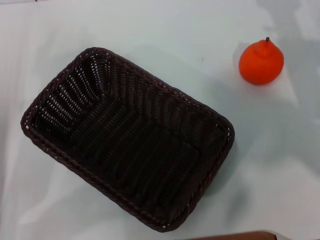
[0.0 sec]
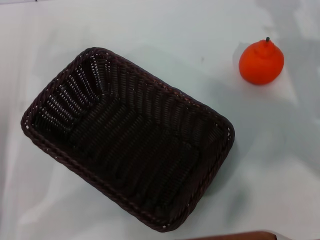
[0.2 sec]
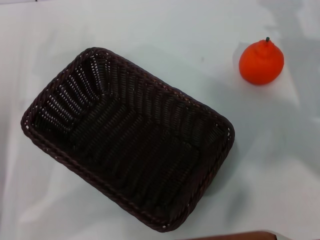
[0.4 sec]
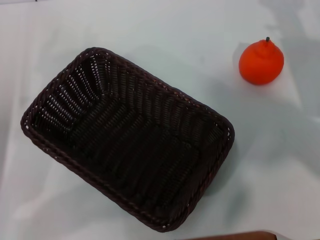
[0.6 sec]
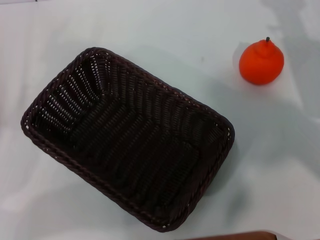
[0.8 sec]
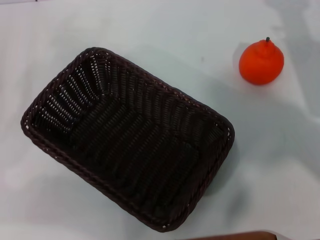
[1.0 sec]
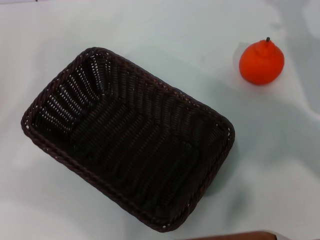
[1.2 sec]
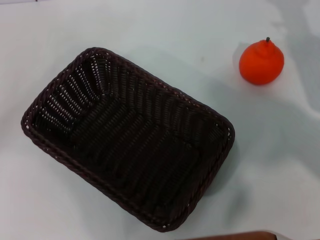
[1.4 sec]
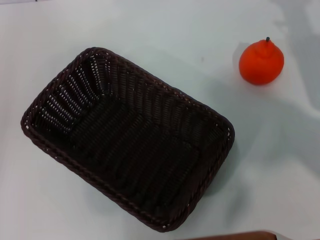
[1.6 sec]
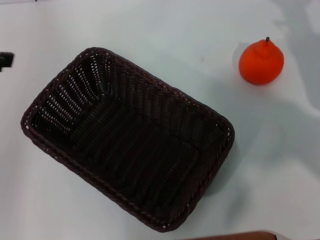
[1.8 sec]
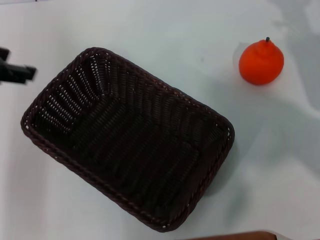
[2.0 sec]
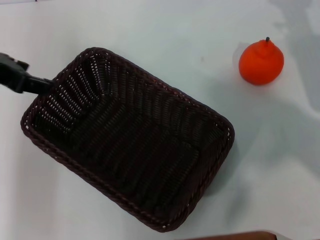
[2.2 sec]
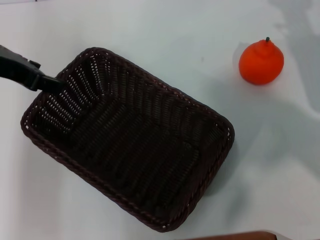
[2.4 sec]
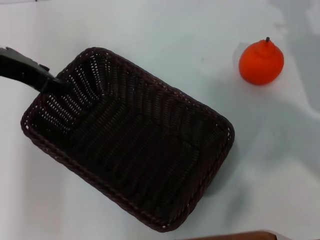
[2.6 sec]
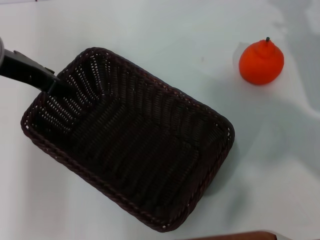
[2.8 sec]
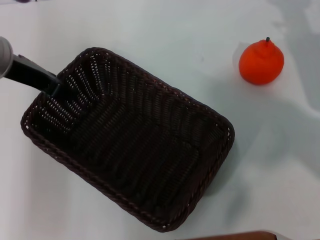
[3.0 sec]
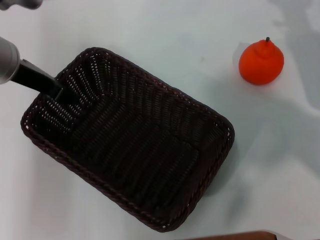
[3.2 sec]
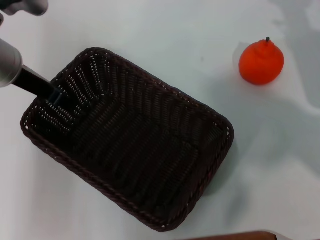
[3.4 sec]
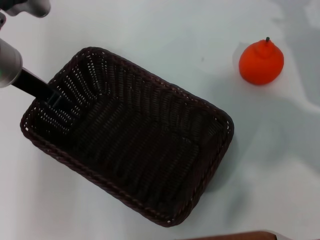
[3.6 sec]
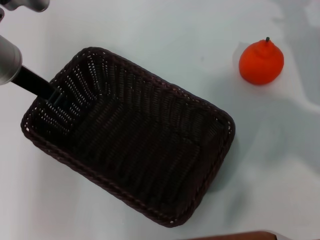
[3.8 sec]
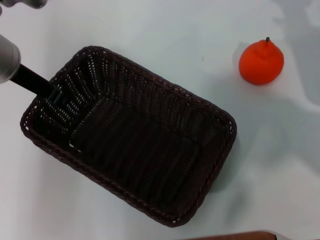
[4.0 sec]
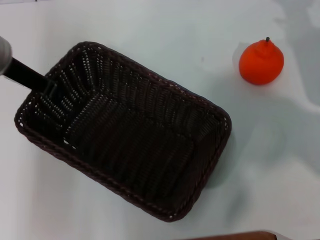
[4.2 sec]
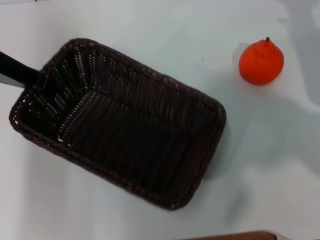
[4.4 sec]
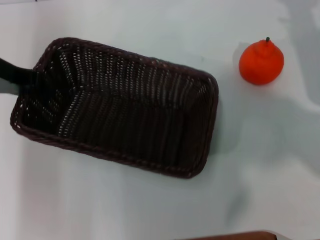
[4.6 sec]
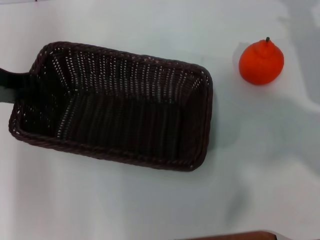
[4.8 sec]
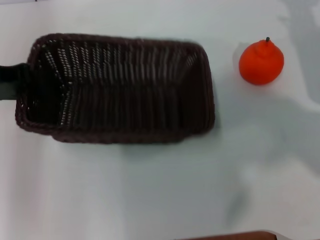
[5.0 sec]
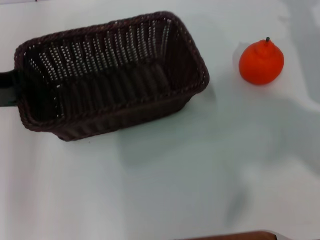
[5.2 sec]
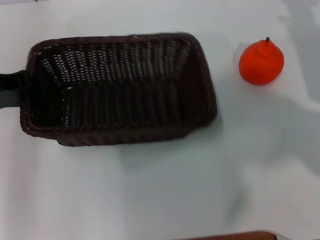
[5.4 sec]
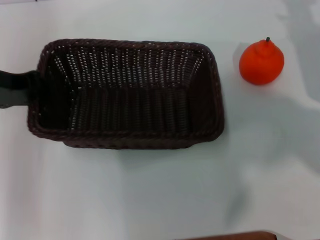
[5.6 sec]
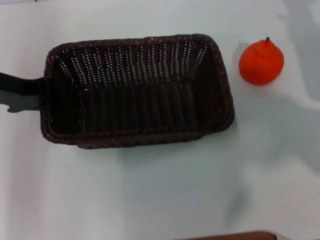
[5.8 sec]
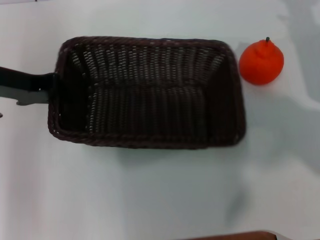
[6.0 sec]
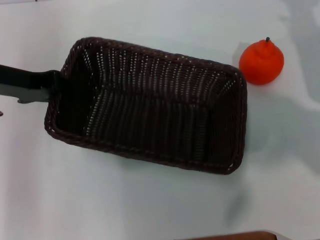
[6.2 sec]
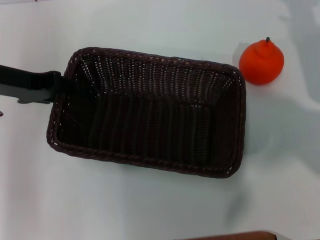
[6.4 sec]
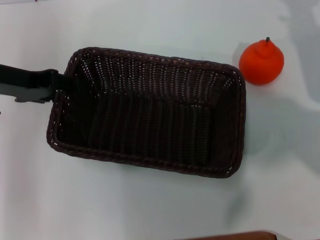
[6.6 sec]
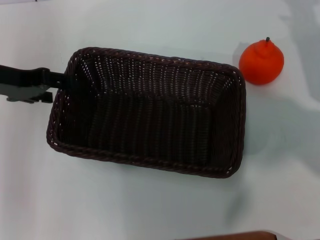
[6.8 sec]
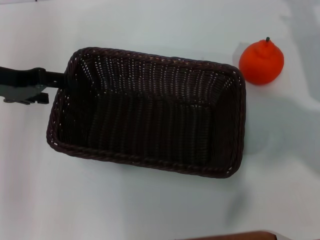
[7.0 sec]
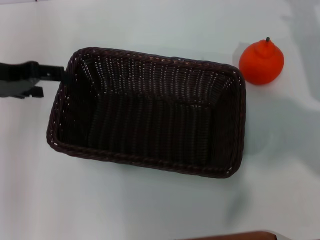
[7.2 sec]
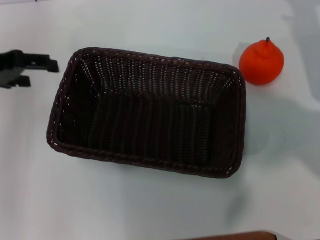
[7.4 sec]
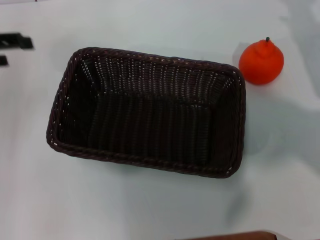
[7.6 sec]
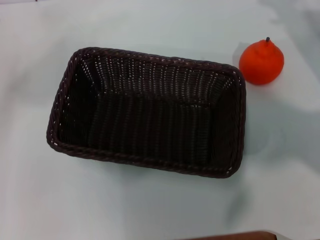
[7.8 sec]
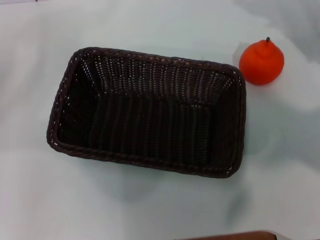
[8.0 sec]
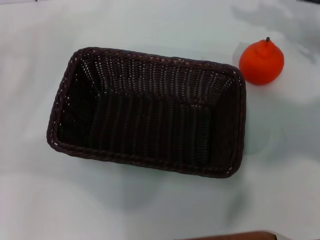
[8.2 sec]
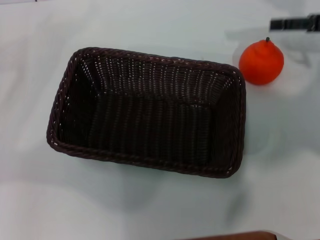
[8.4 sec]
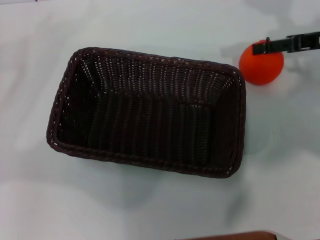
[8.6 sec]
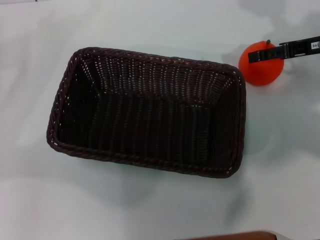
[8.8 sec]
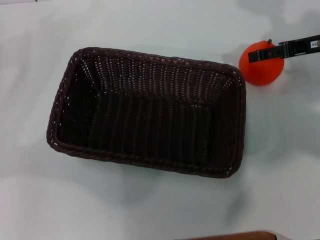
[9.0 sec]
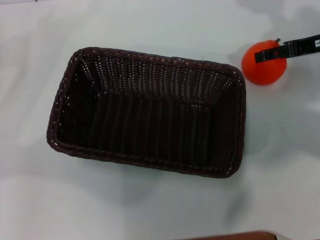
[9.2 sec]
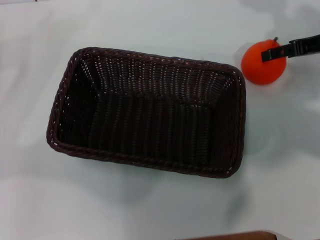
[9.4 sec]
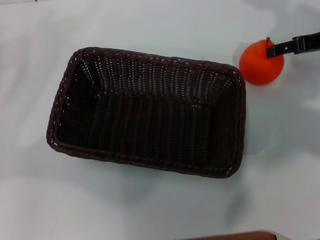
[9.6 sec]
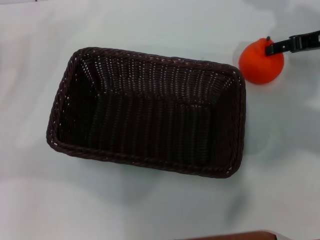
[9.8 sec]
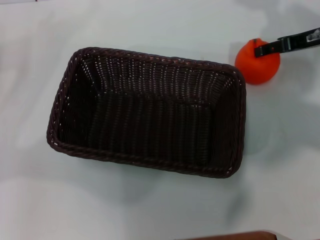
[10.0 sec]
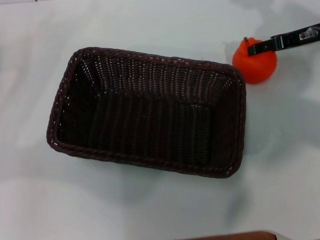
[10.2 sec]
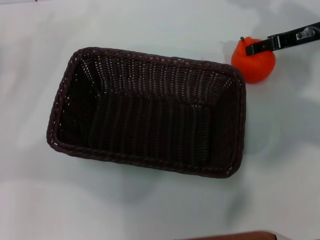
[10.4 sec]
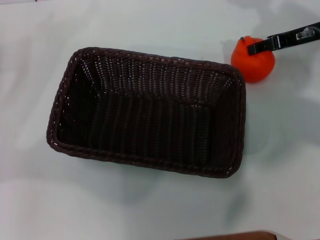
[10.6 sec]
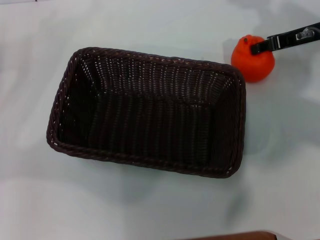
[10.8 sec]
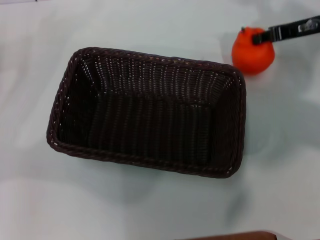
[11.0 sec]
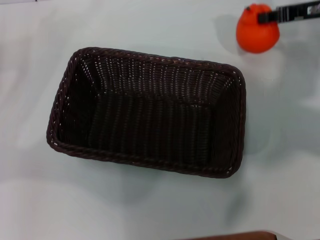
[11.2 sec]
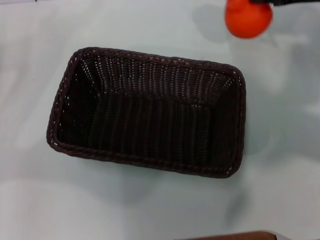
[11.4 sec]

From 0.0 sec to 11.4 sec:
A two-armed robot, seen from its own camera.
Task of the whole recording: the left gripper pick up the black basket and place it horizontally in the middle of the table, the right gripper pick up the orange and place it into the black basket.
Step, from 0.0 sec to 4.0 sec: Pick up the dark basket with the left gripper.
Step, from 4.2 sec to 6.6 sec: Place the dark basket in the center of view with the left gripper.
Step, from 6.8 sec to 11.0 sec: Pick up the orange with the right gripper.
From 0.0 sec to 1.4 sec: The left gripper heads upward and to the left, covering some 15 cm.
From 1.4 sec to 2.8 sec: The left gripper goes roughly 20 cm to the right and forward.
From 2.8 sec to 4.2 sec: The left gripper closes its fingers.
From 4.2 sec to 5.6 sec: The left gripper is displaced to the left by roughly 5 cm.
From 5.6 sec to 7.2 sec: The left gripper opens its fingers.
From 7.2 sec to 8.6 sec: The left gripper shifts about 15 cm to the left and backward, while the right gripper goes some 5 cm upward.
From 8.6 sec to 10.0 sec: The grippers stay close to where they were, moving slightly.
From 10.0 sec to 11.4 sec: The right gripper is displaced upward by some 5 cm, and closes up.

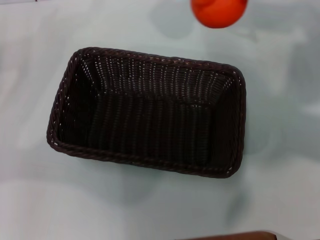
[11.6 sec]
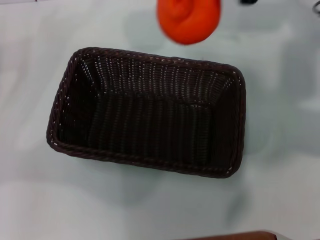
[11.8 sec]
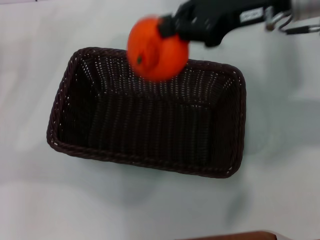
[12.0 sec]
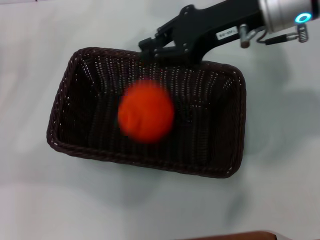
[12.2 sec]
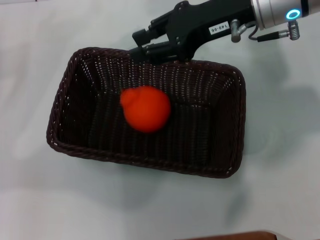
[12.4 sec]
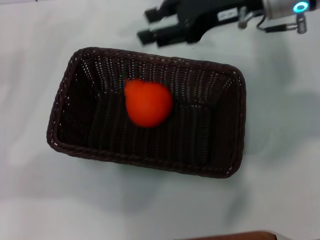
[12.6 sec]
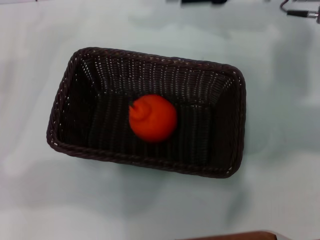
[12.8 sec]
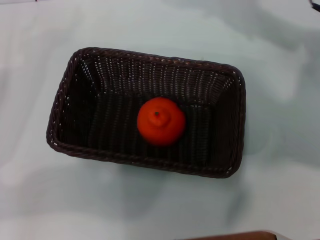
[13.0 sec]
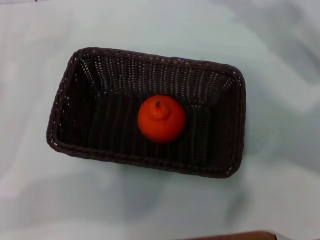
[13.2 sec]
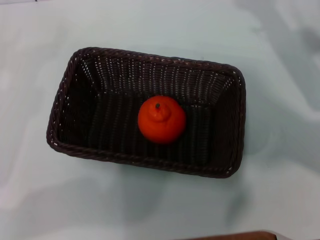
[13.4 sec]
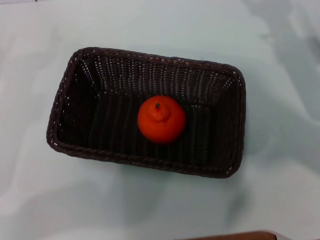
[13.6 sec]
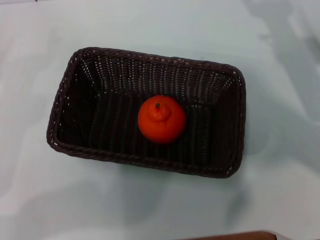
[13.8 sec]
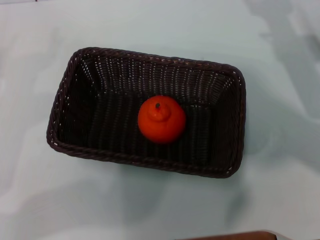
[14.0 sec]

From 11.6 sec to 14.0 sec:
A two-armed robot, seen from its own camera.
Task of the whole recording: the left gripper pick up the black basket and place it horizontally in the middle of the table, the right gripper pick up the orange and place it into the black basket.
Step, from 11.6 sec to 12.2 sec: Place the orange into the dark basket with the right gripper.
From 11.6 sec to 12.8 sec: The right gripper opens its fingers.
From 12.8 sec to 14.0 sec: The left gripper ends up approximately 5 cm from where it was, while the right gripper heads downward, to the right and backward, covering approximately 15 cm, and opens up.
